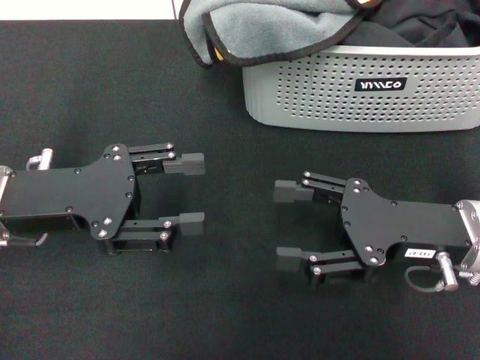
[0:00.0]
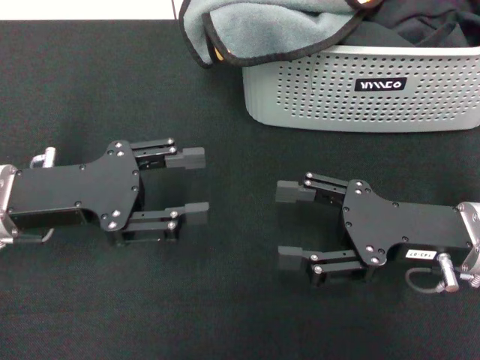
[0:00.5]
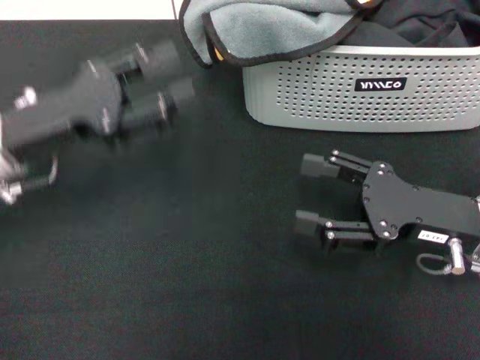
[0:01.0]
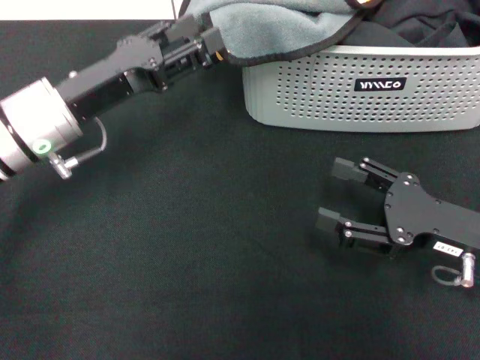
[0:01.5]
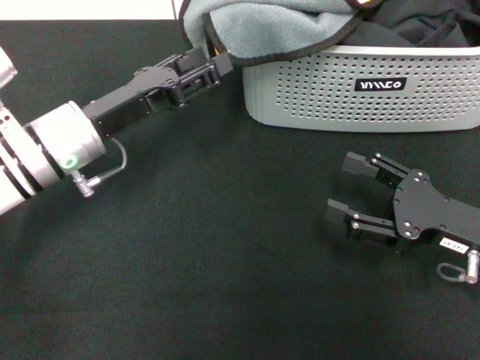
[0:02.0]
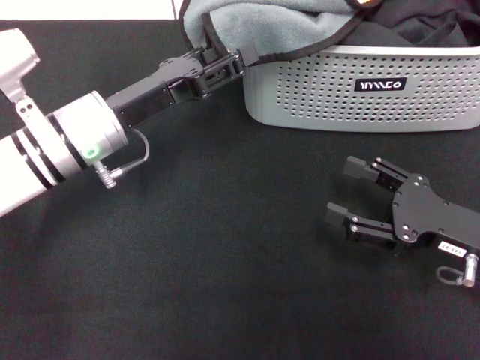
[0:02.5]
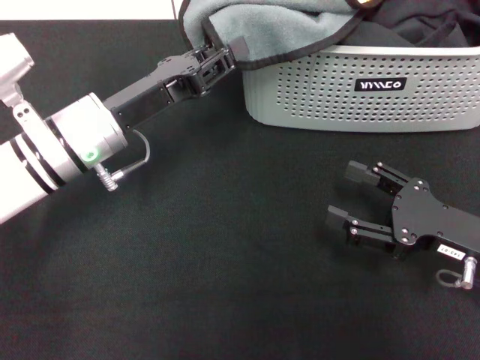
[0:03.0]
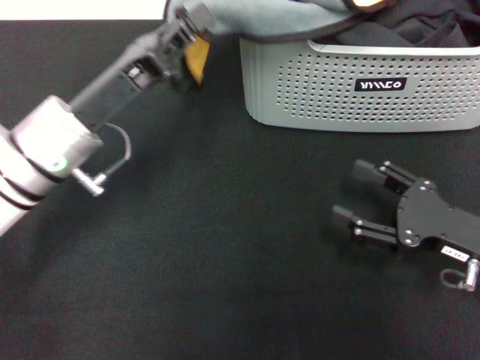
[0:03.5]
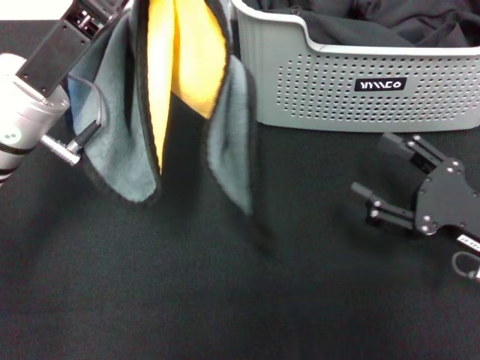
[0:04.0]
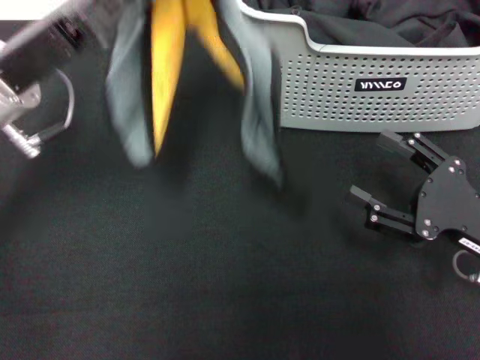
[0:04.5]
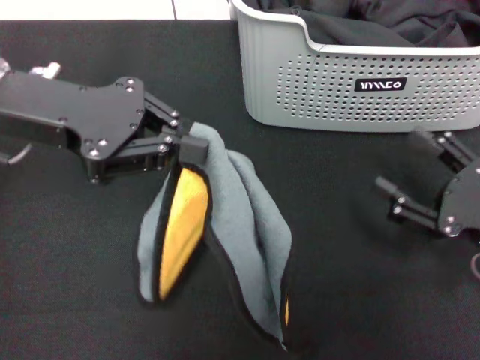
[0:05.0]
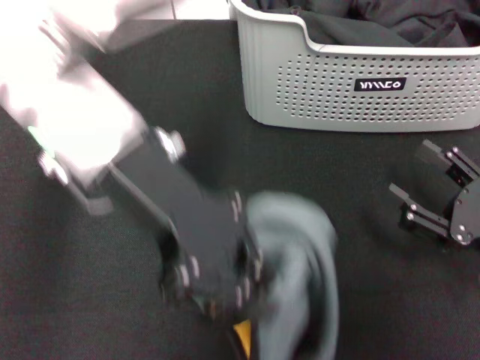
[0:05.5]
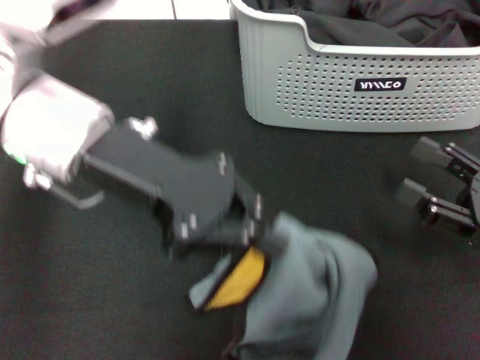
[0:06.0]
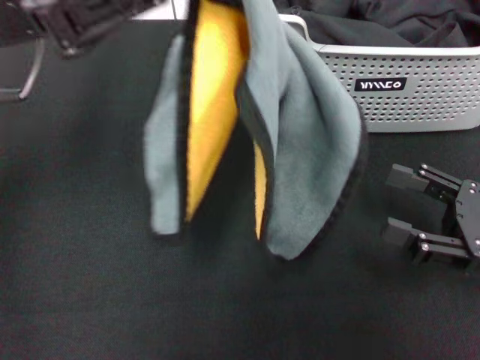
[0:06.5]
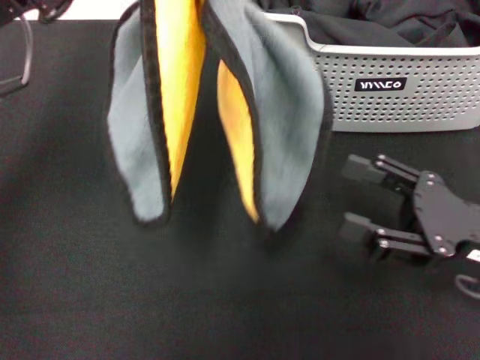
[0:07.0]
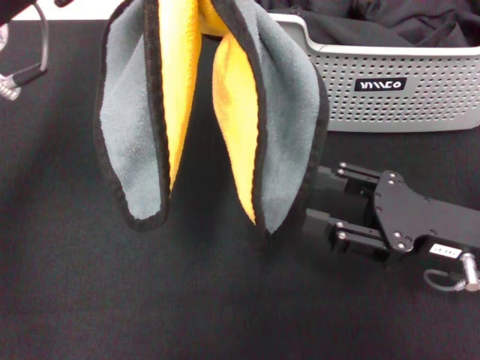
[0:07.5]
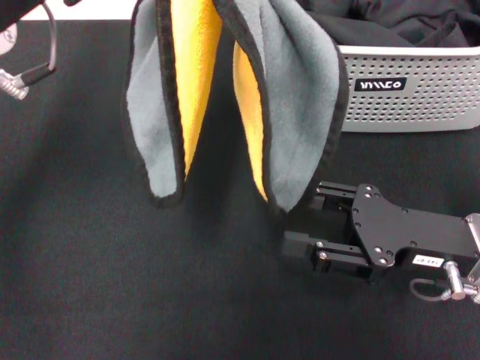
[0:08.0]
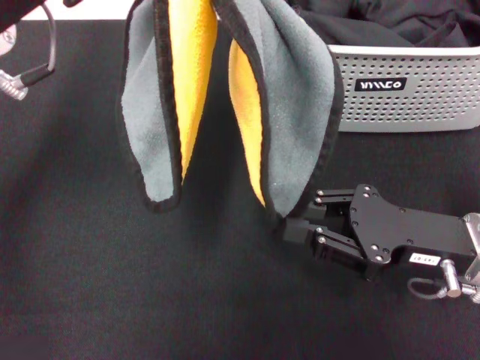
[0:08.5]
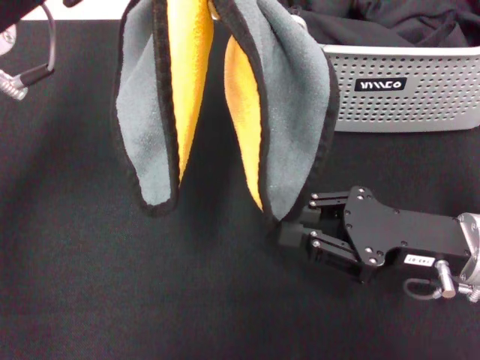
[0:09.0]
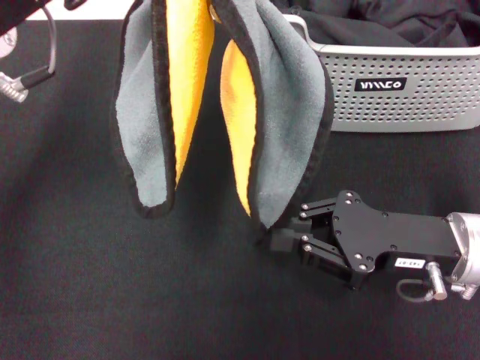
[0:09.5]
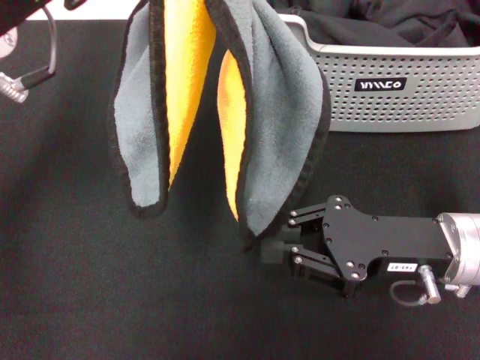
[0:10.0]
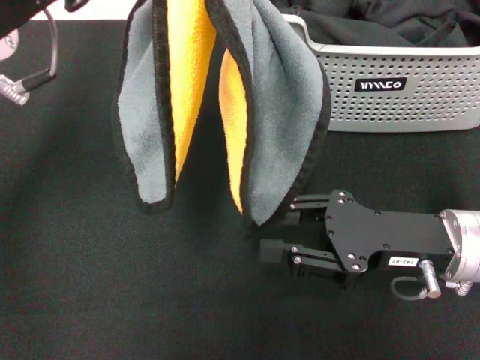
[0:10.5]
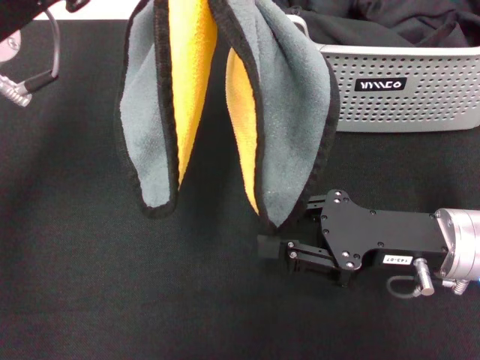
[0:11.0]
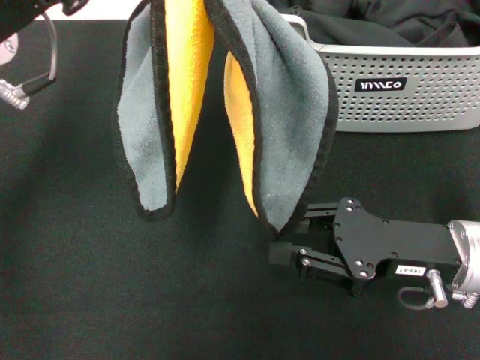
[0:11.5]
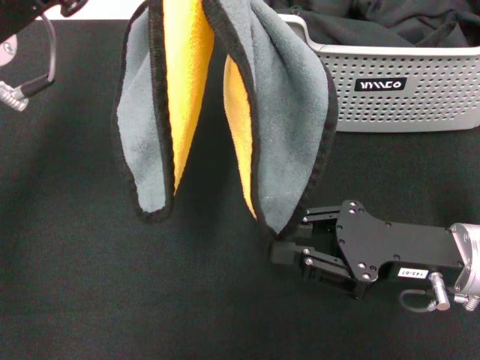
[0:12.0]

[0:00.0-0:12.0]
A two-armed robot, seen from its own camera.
Task of the whole recording: pick up the towel from the storage box and lay it flat on the black tablecloth.
Step, 0:00.0 to 0:03.0: Pick up a towel with the left gripper.
0:00.0 to 0:02.0: The right gripper ends up approximately 5 cm from where it was. The left gripper goes approximately 5 cm forward.
0:02.0 to 0:04.0: The left gripper shifts about 5 cm upward, and closes up.
0:04.0 to 0:06.0: The left gripper heads upward, covering some 5 cm.
0:06.0 to 0:08.0: The right gripper shifts about 10 cm to the left. The left gripper shifts by approximately 5 cm.
0:08.0 to 0:10.0: The right gripper closes up.
0:10.0 to 0:12.0: The grippers make only small movements.

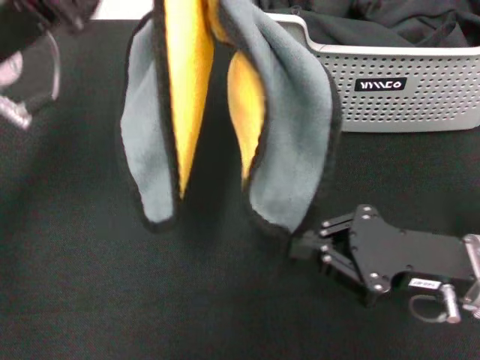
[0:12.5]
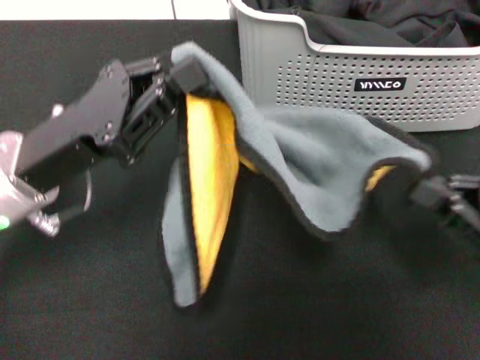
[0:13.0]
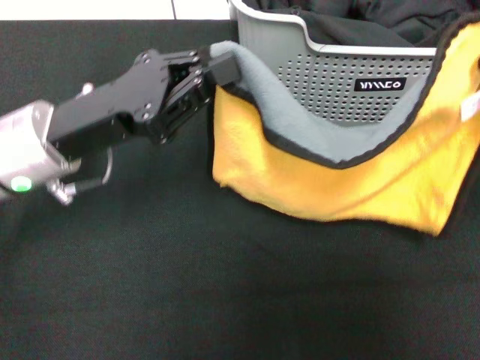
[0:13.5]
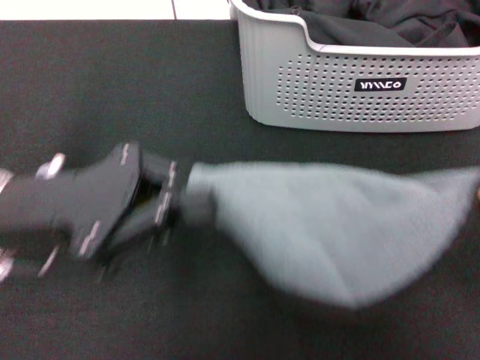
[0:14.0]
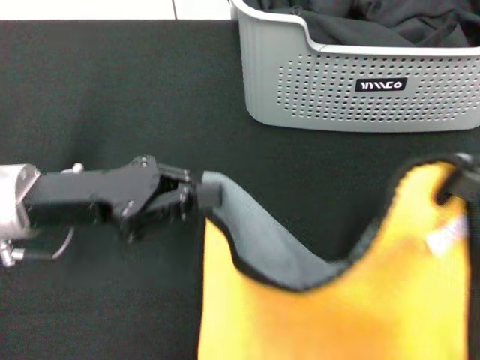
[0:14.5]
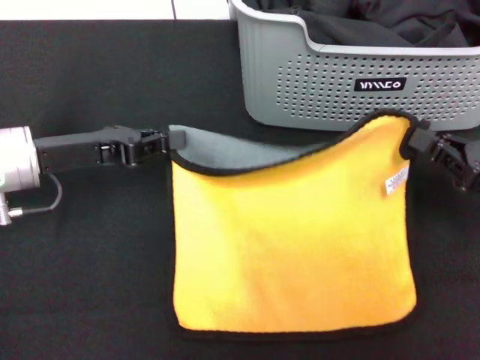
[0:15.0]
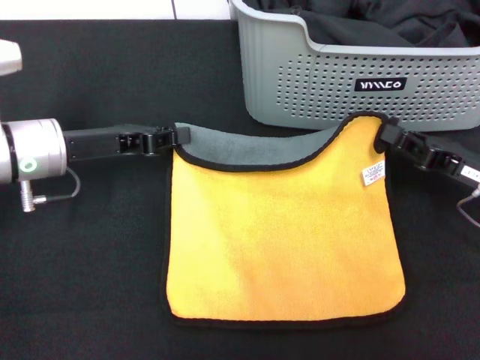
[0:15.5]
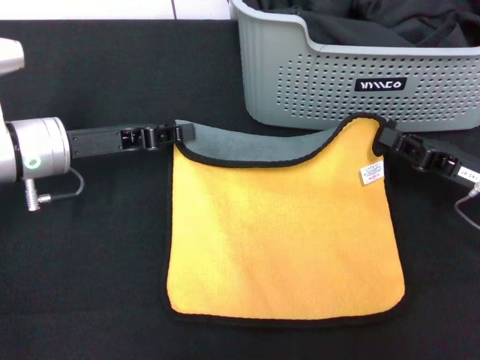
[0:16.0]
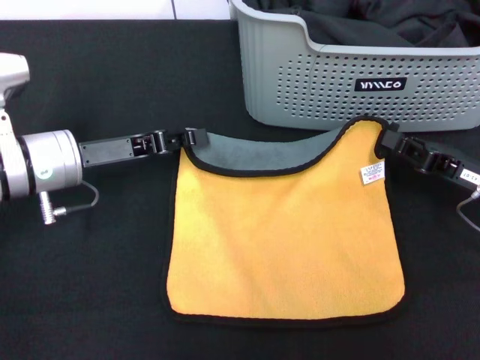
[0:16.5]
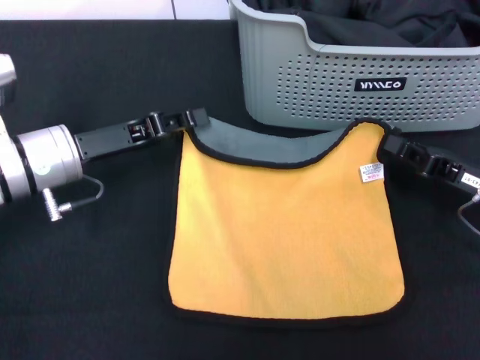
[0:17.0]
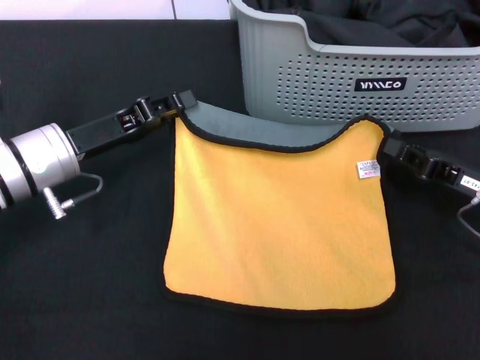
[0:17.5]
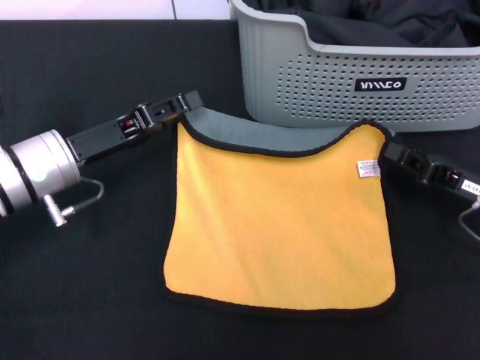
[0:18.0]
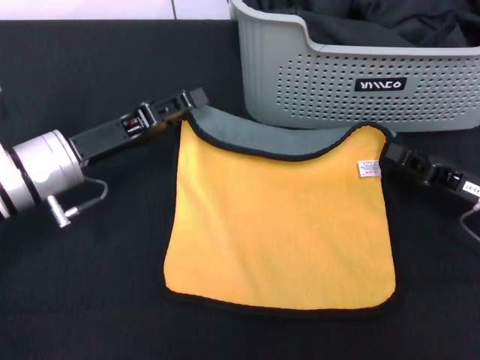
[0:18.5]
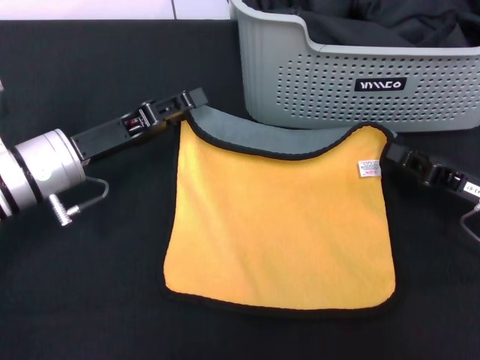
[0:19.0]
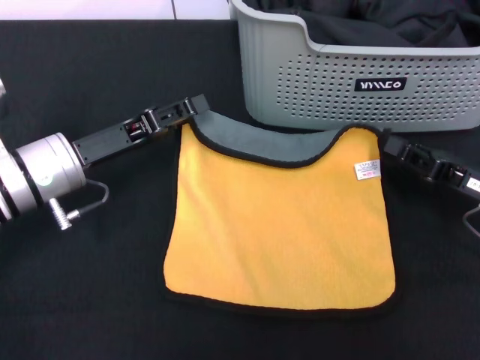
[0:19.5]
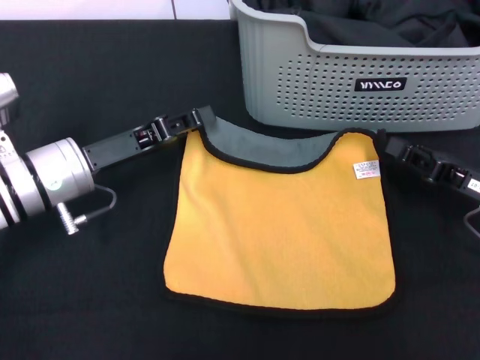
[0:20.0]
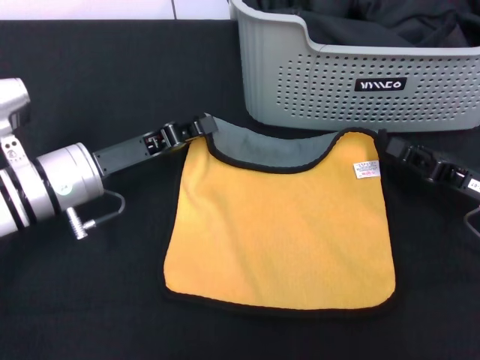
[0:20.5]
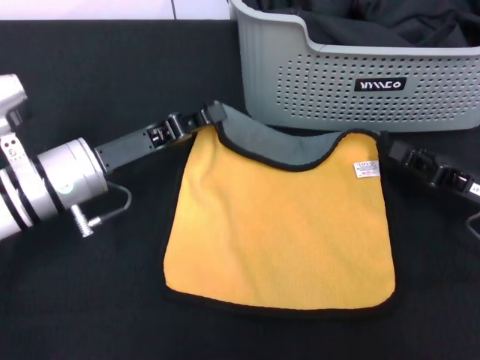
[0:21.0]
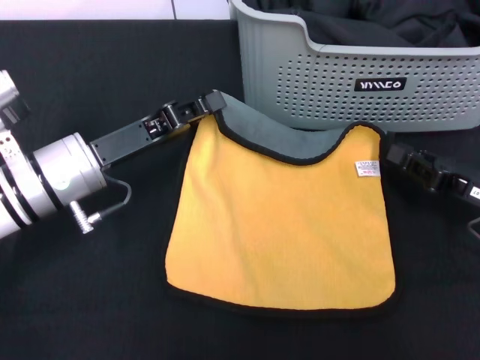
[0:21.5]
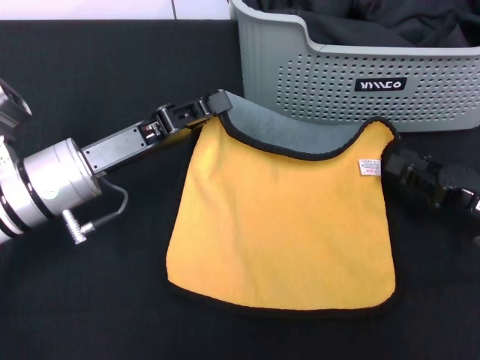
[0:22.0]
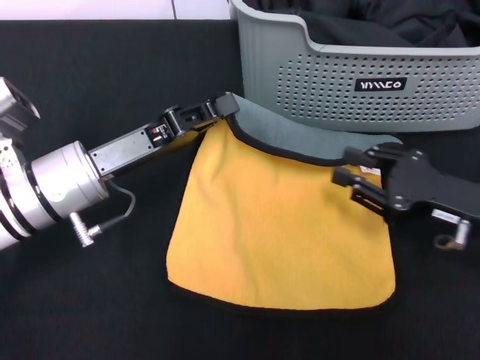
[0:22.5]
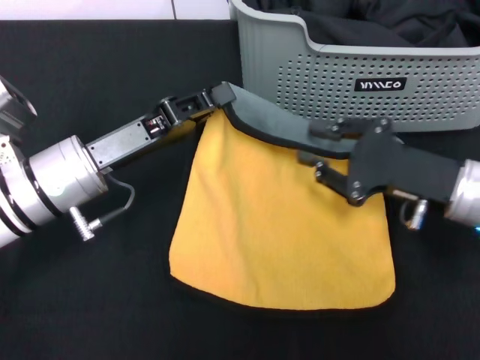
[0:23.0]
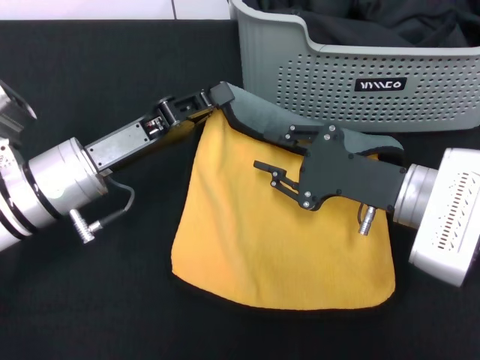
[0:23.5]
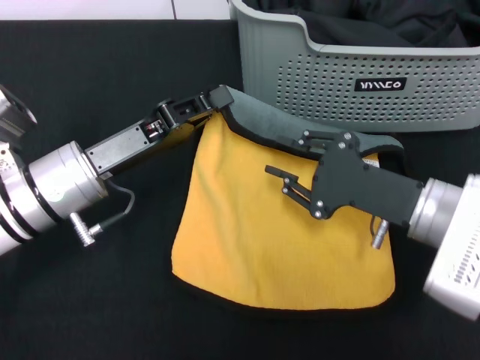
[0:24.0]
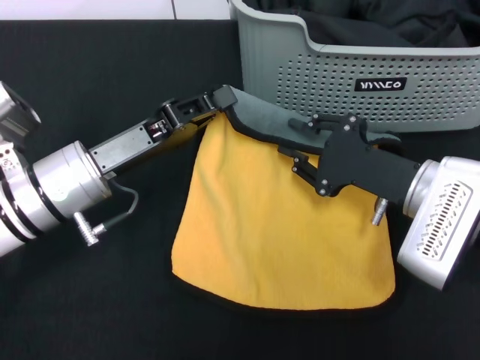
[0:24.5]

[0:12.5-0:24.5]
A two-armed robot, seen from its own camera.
Task of the whole recording: pick up the towel from the storage box and lay it flat on the black tablecloth.
0:12.5 to 0:14.5: The left gripper goes about 10 cm downward. Meanwhile the right gripper moves to the right and upward, about 10 cm.
0:14.5 to 0:16.5: The right gripper goes some 15 cm forward and downward; the left gripper travels forward by approximately 5 cm.
0:16.5 to 0:18.5: The left gripper opens its fingers.
0:18.5 to 0:20.5: The left gripper closes its fingers.
0:22.5 to 0:24.5: The right gripper travels to the left by roughly 5 cm.

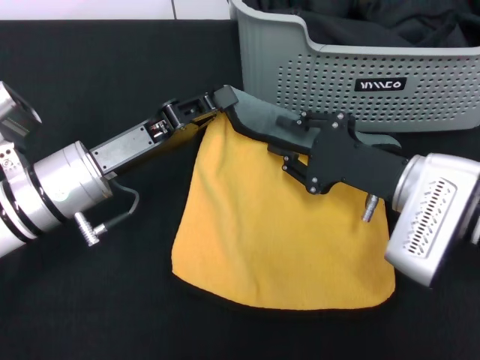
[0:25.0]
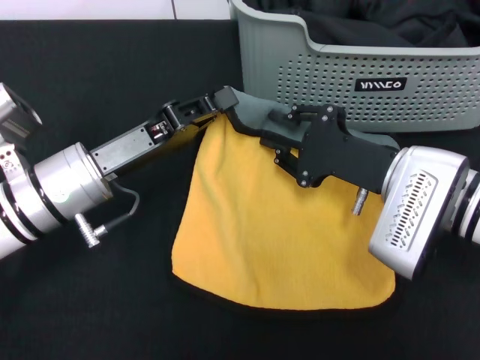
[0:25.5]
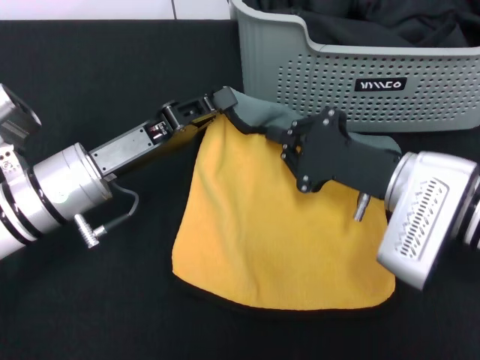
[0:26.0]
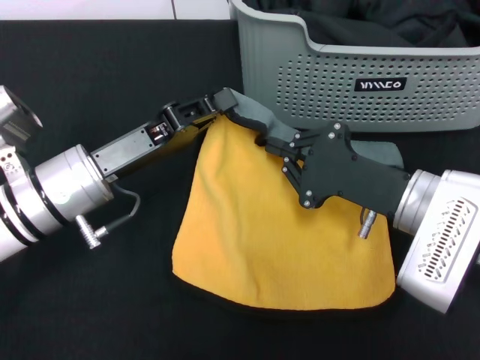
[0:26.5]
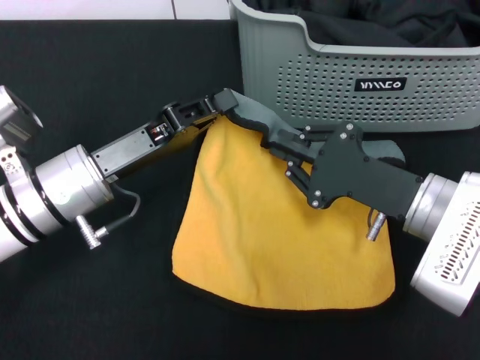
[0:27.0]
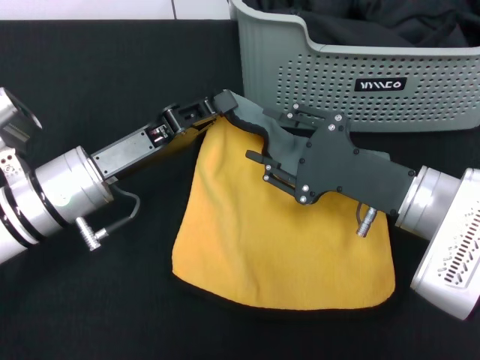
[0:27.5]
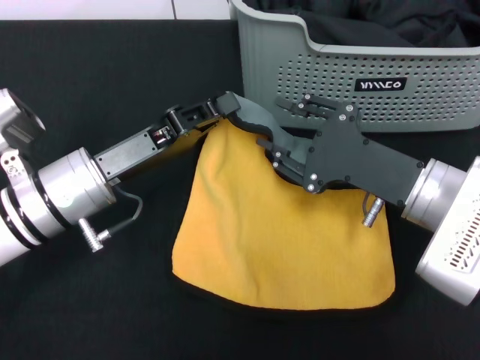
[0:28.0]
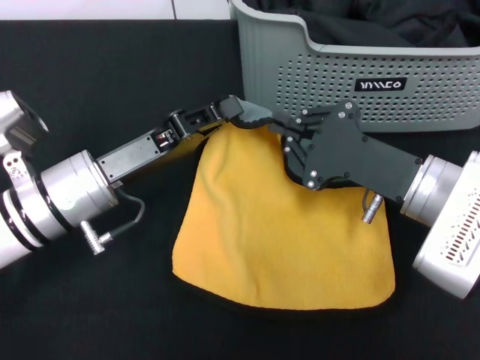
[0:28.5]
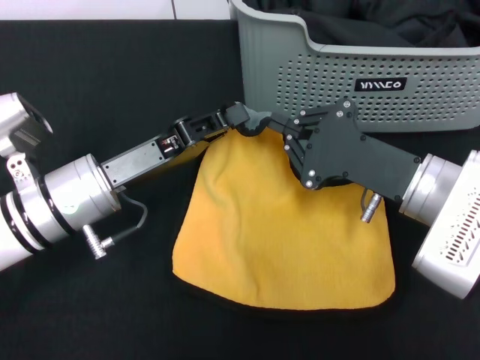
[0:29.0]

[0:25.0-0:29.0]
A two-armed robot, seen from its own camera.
Task of the whole recording: pick up the towel from the storage box and lay it flat on the black tablecloth.
0:25.0 to 0:27.0: The grippers stay close to where they were, moving slightly.
0:27.0 to 0:29.0: The right gripper opens, then closes again.
